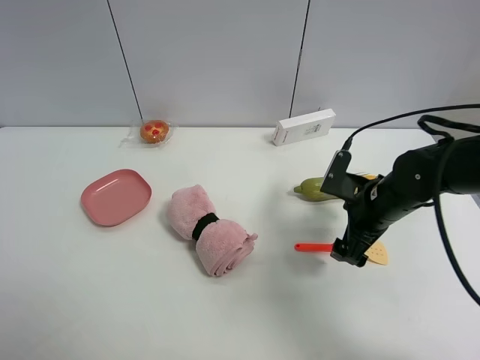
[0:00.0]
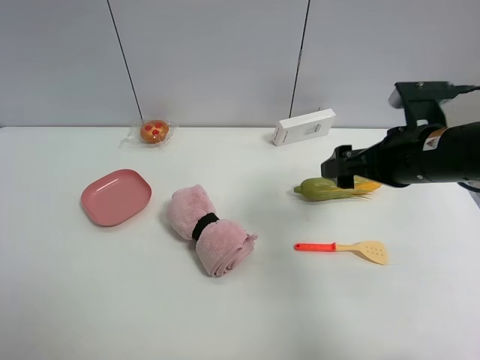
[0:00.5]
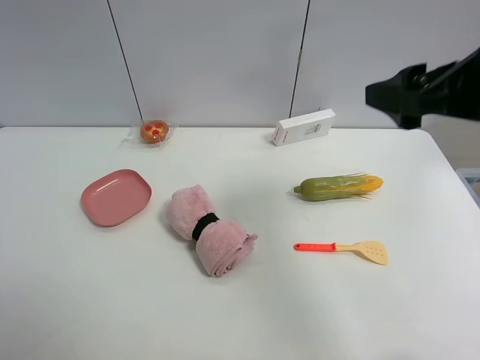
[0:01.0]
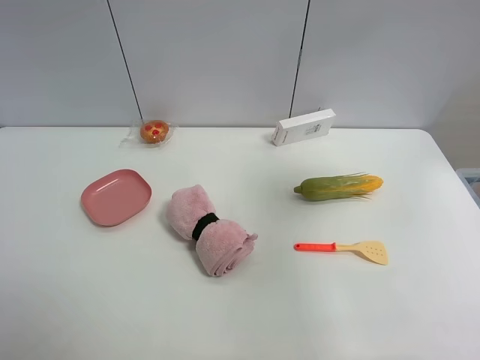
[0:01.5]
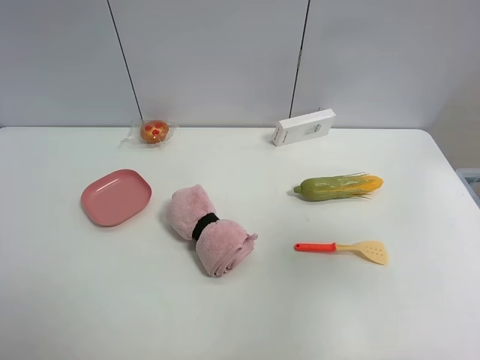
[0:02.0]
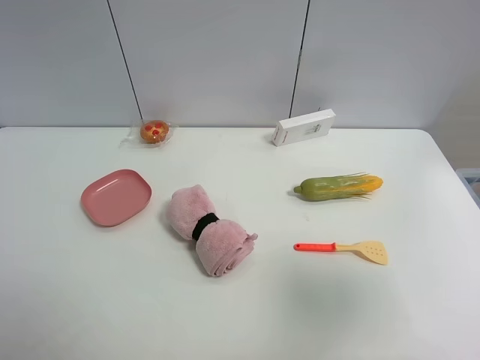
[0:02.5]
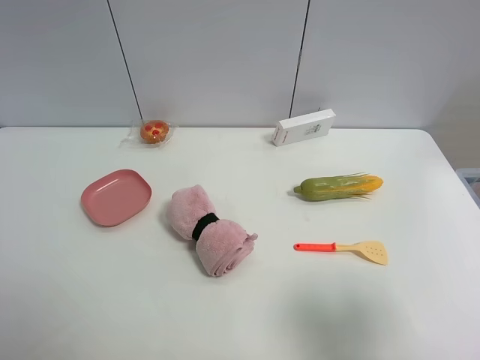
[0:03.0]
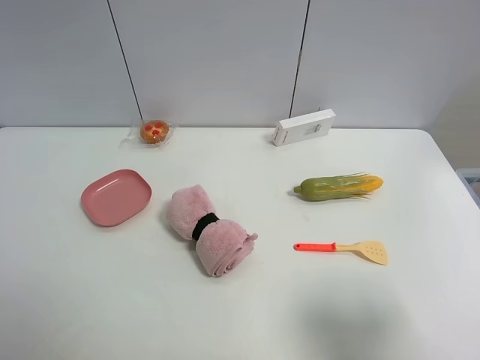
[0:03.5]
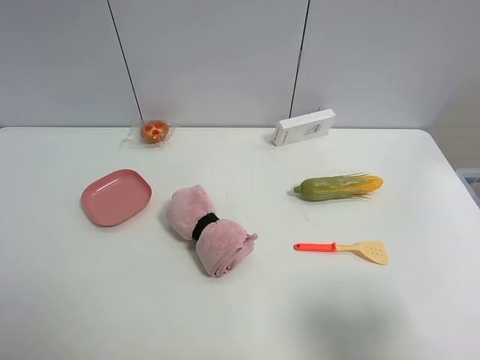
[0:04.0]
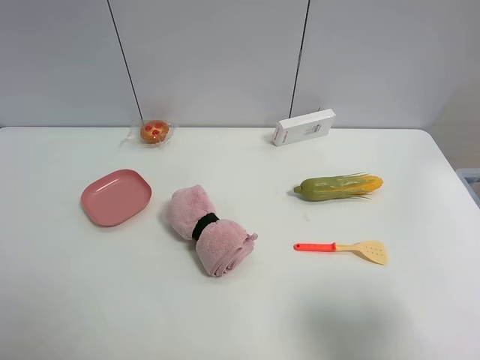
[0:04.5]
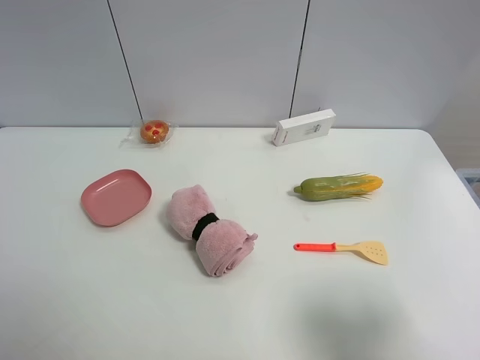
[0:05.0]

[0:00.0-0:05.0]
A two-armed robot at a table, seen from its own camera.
Task of the whole recording: the gripper move the object.
0.0 to 2.5 s: The right gripper is displaced upward and backward by about 35 cm.
2.5 to 5.0 s: The right gripper heads downward, covering approximately 10 cm.

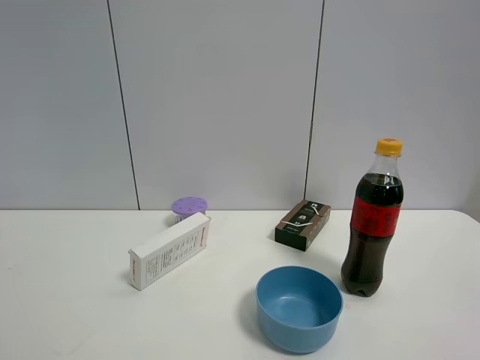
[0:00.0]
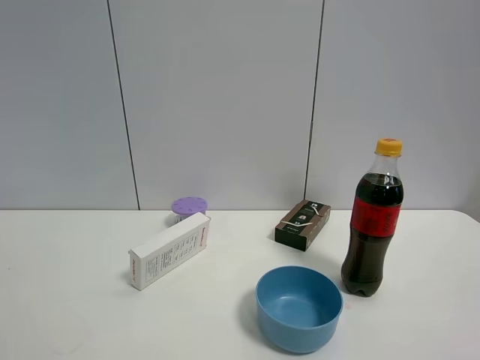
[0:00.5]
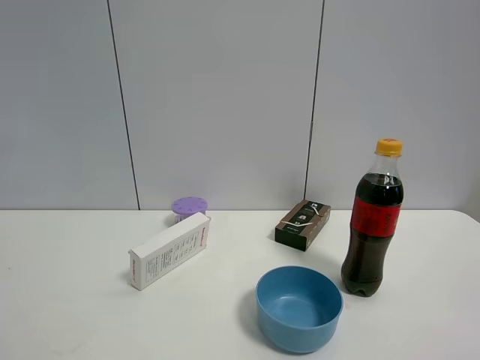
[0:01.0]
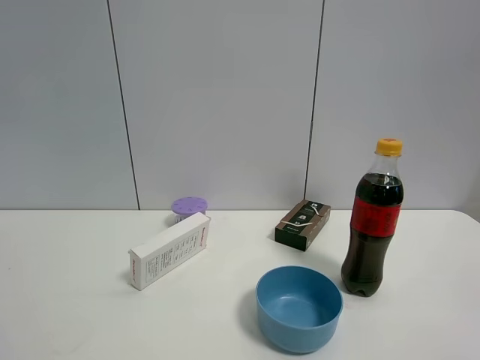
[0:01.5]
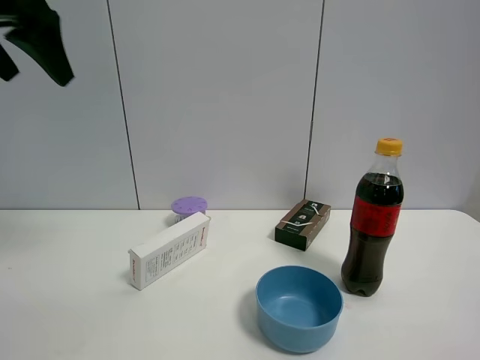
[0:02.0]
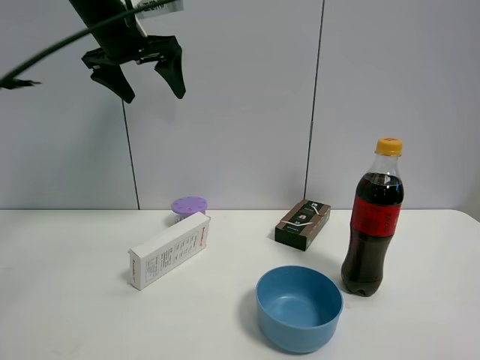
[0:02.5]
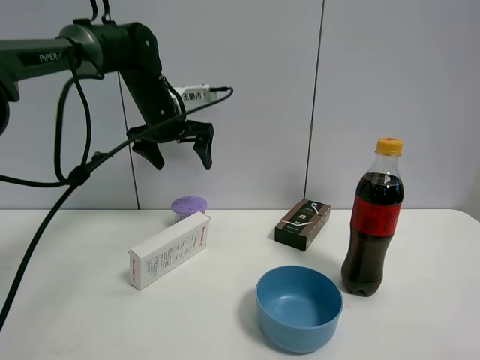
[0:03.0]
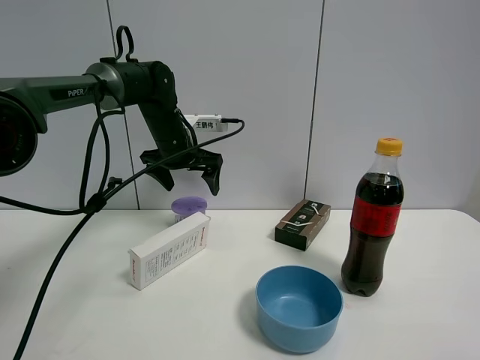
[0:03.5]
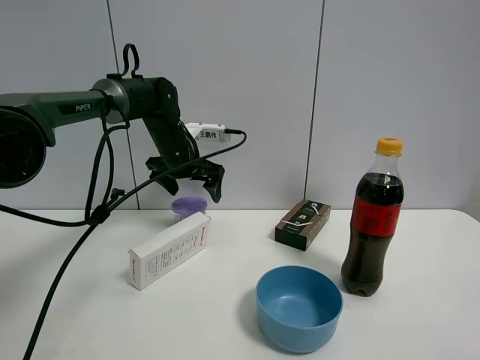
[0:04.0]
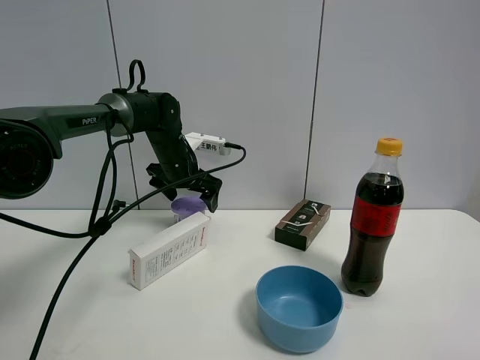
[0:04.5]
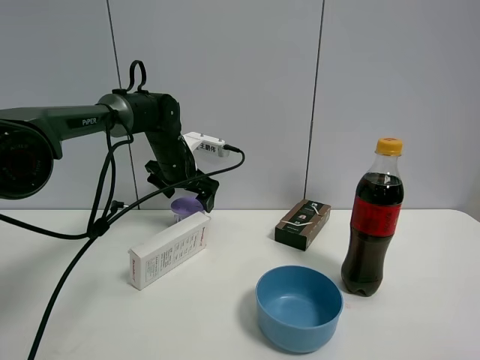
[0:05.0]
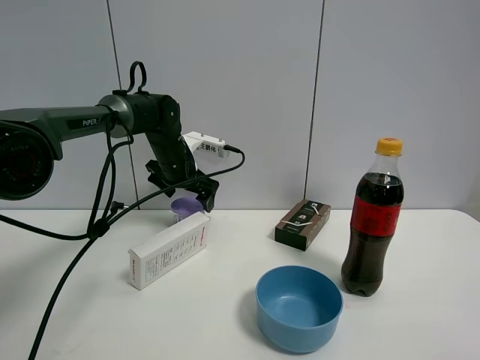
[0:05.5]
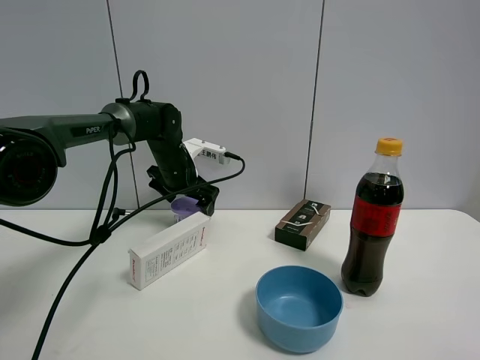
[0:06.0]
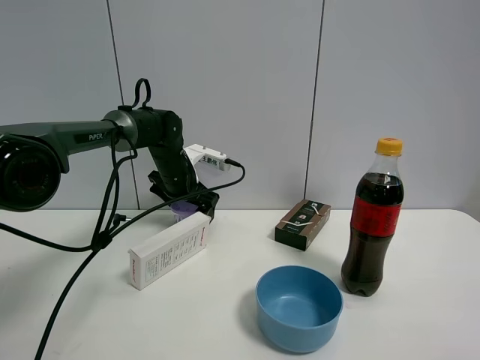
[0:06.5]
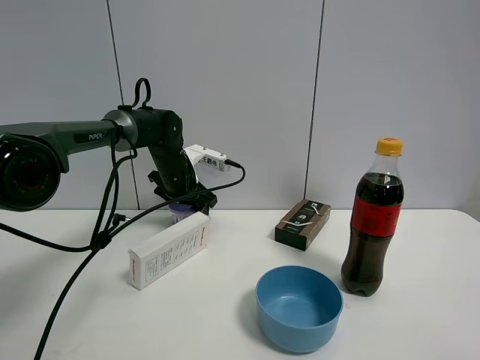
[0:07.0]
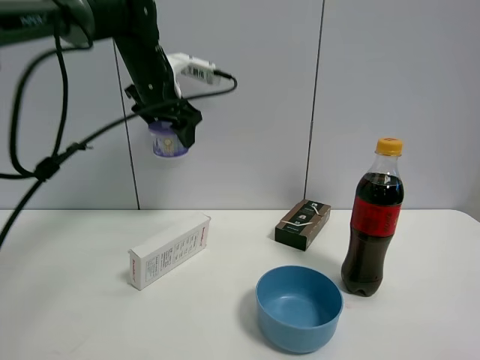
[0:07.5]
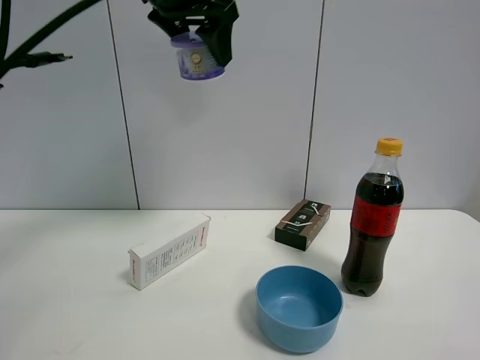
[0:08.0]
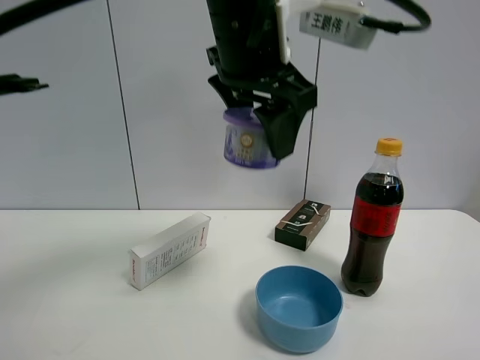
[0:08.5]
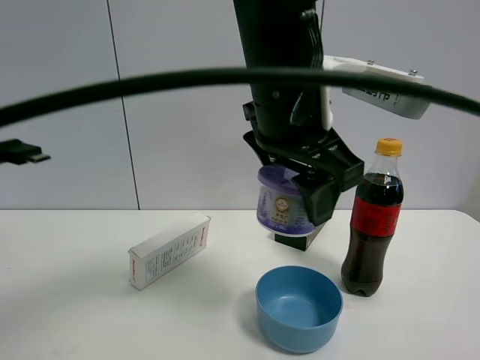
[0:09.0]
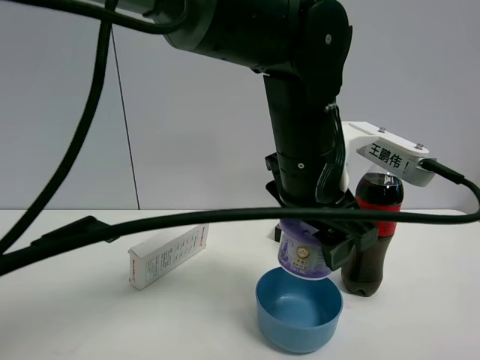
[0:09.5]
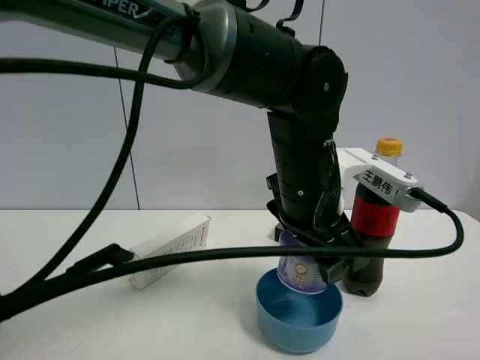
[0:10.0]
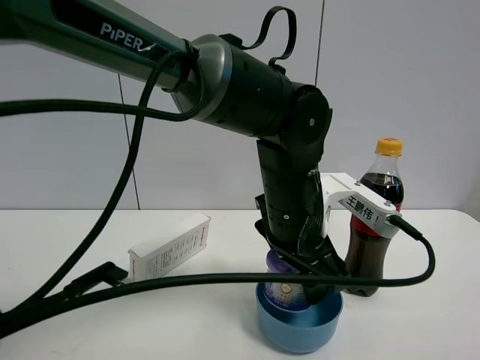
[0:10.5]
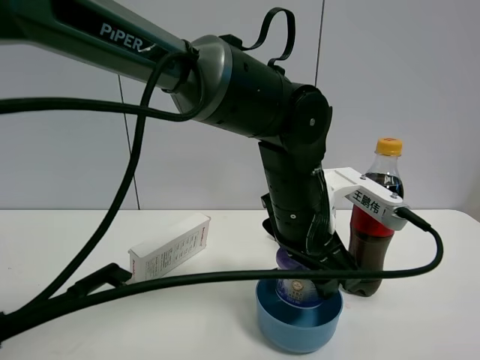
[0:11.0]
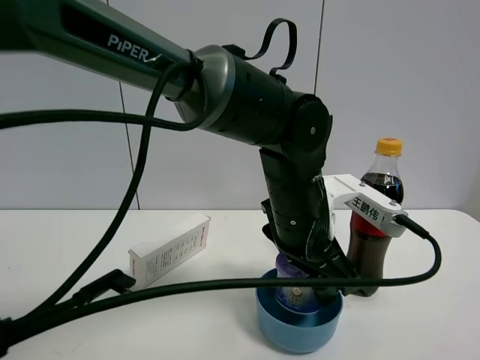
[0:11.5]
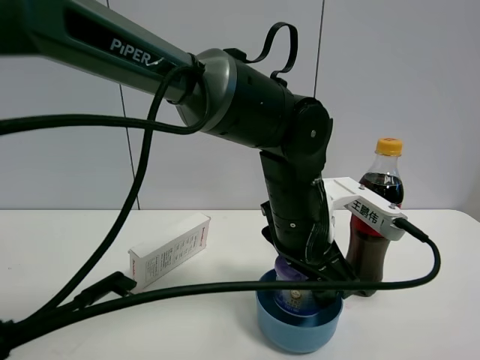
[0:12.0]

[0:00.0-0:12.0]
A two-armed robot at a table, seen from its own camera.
Task of the whole recording: the gripper move the object.
Step, 0.0 to 6.5 s: Grasp the Incense box with the left gripper.
0.0 to 2.0 s: The left gripper heads forward, covering about 35 cm, and closes.
2.0 to 4.0 s: The left gripper goes approximately 35 cm downward, forward and to the right, and opens.
4.0 to 6.0 s: The grippers stay close to where they were, moving slightly.
6.0 to 8.0 s: The left gripper moves upward and backward, approximately 30 cm, and closes.
8.0 to 10.0 s: The left gripper shifts roughly 30 cm downward, to the right and backward.

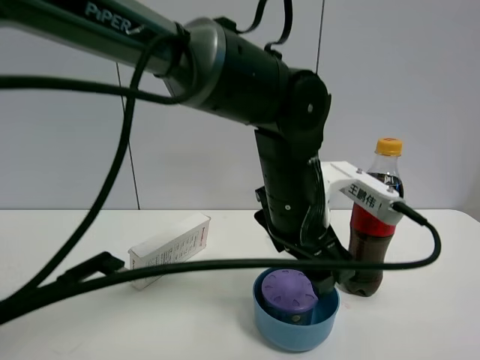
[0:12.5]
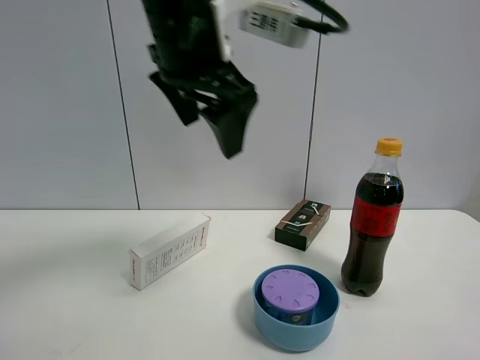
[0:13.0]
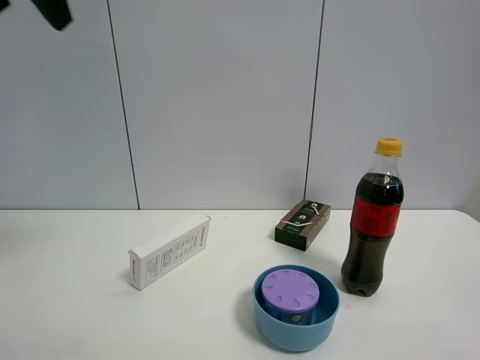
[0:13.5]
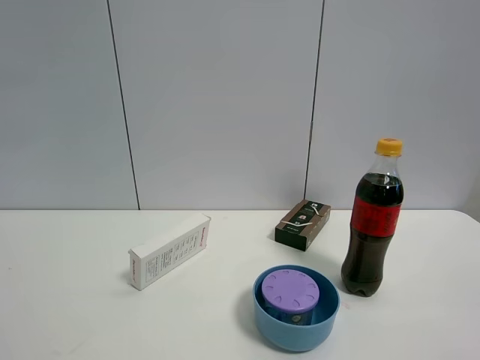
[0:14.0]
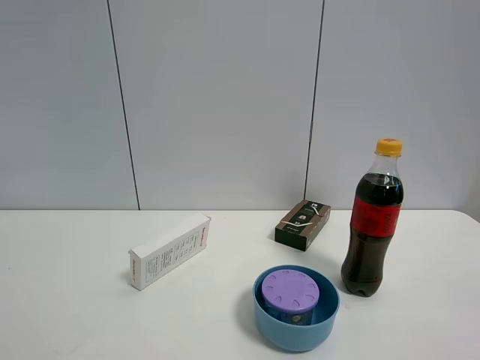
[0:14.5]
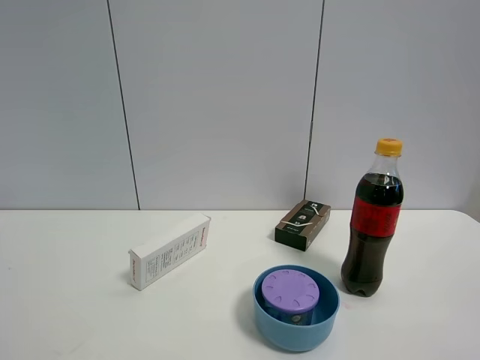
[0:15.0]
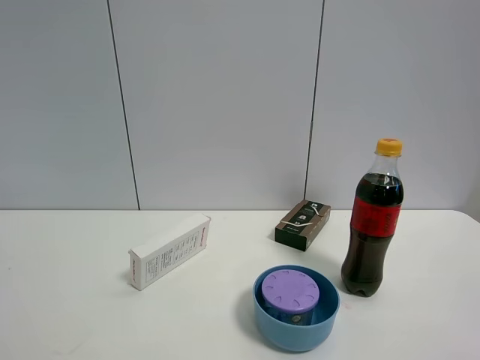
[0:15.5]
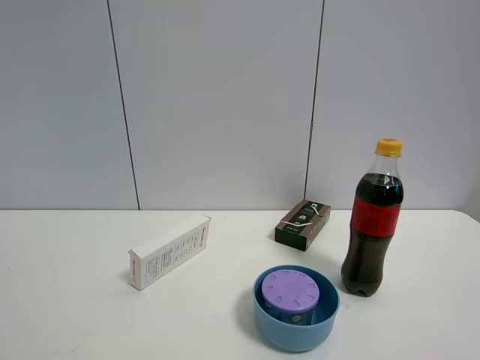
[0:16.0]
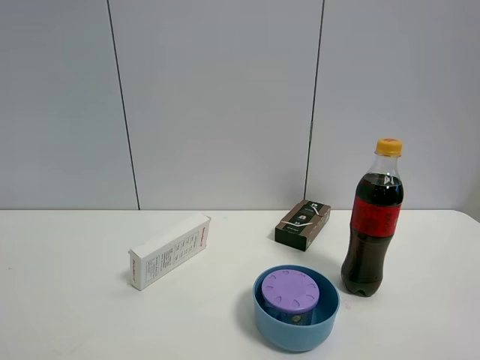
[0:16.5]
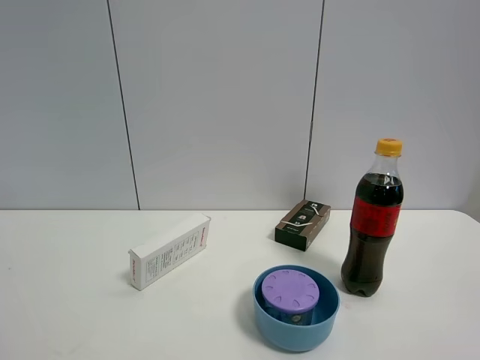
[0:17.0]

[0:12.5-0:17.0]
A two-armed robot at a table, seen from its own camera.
Task of the whole recording: the gripper move the object.
12.5 to 14.5 s: The left gripper heads to the left, backward and upward, covering about 50 cm.

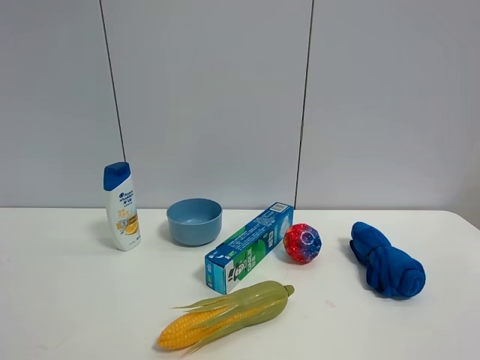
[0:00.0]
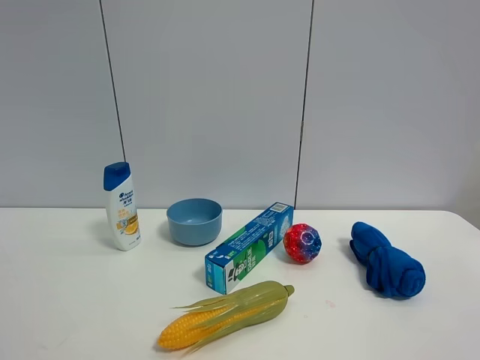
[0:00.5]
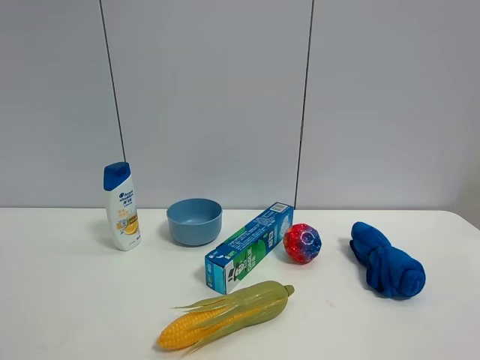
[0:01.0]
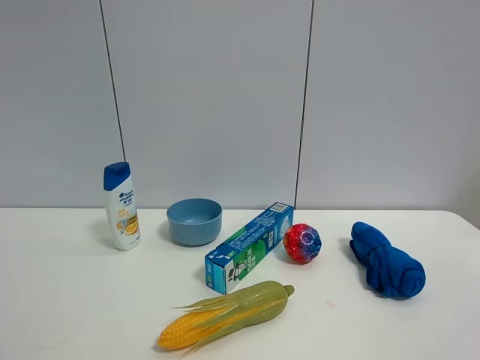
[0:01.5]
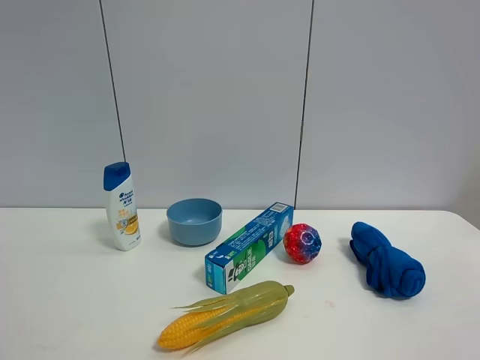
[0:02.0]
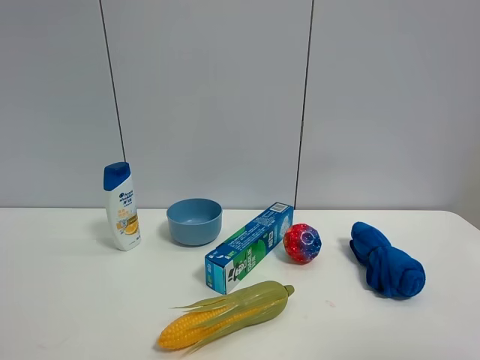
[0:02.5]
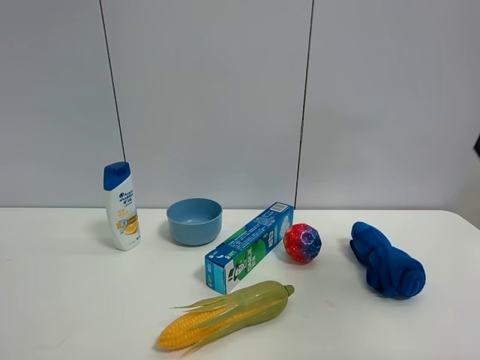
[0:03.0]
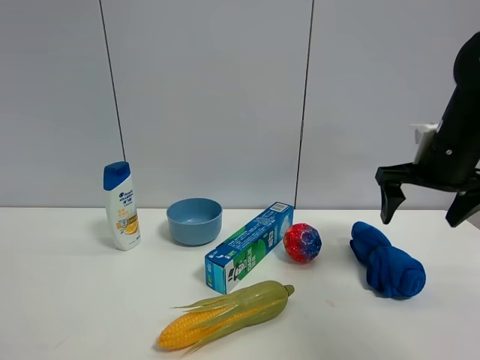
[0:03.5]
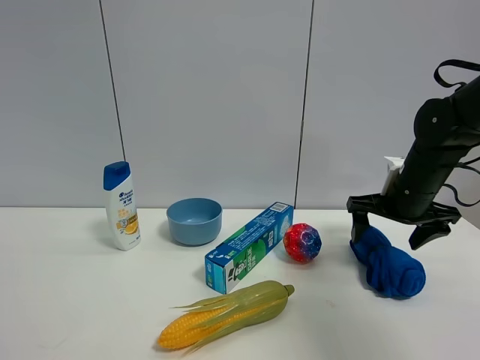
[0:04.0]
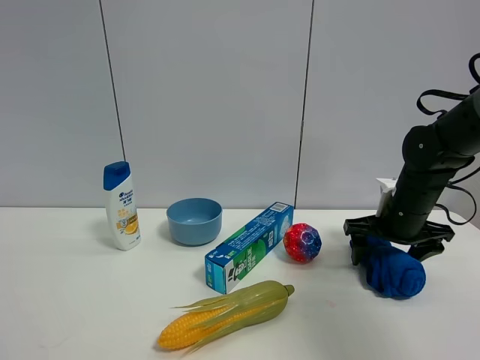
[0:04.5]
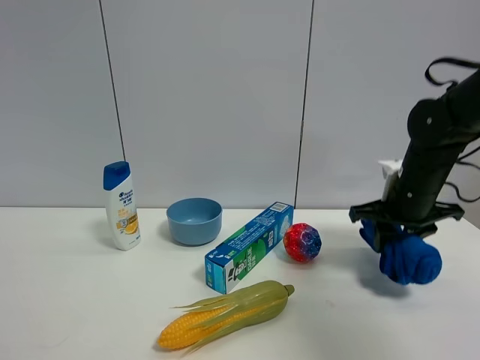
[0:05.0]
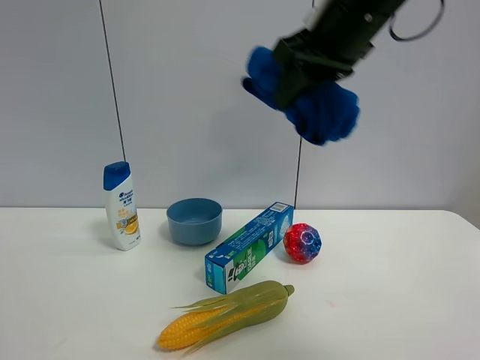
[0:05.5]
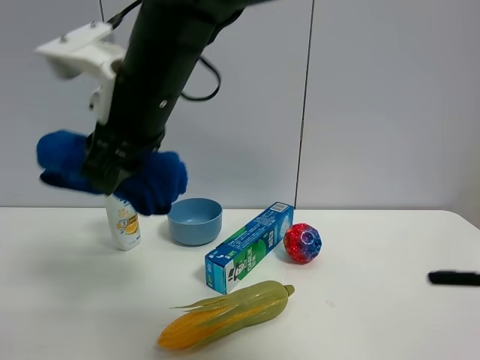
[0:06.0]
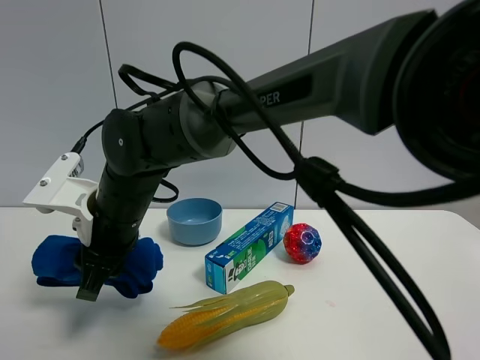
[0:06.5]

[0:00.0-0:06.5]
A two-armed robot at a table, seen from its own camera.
Task of the whole recording: the gripper move the object.
Step, 0.0 to 4.5 s: Grasp the blue towel with the right gripper.
2.0 to 4.5 s: The right gripper shifts approximately 40 cm forward and downward.
4.5 to 6.5 s: The right gripper travels to the left by some 40 cm, and closes up.
